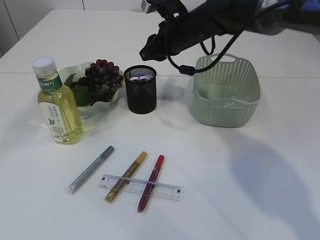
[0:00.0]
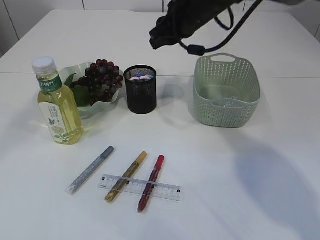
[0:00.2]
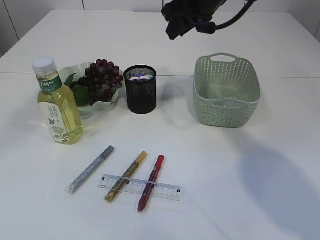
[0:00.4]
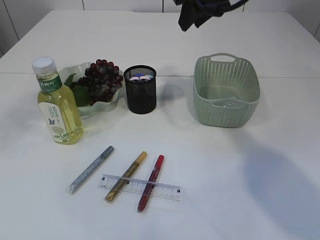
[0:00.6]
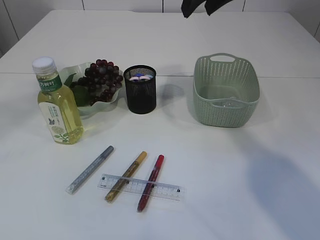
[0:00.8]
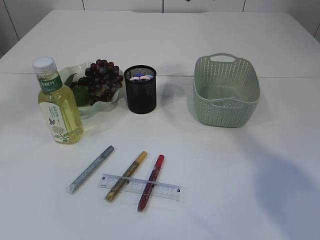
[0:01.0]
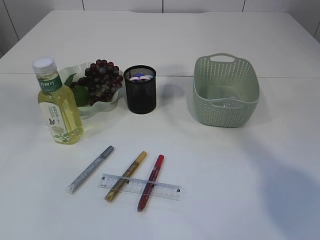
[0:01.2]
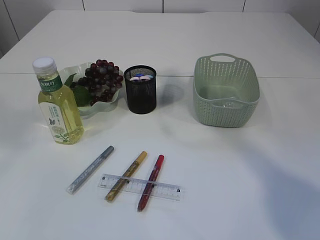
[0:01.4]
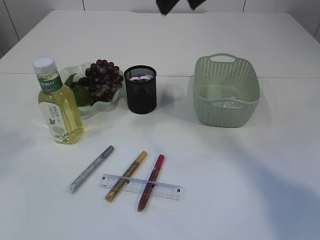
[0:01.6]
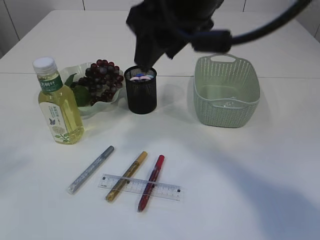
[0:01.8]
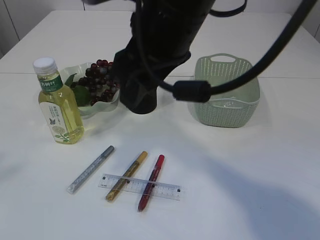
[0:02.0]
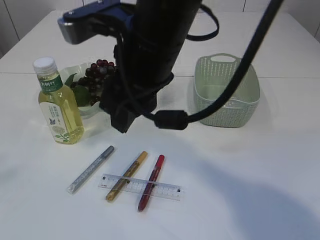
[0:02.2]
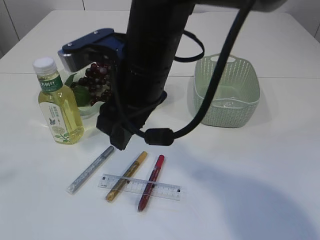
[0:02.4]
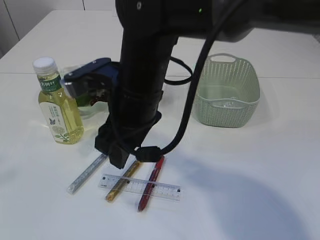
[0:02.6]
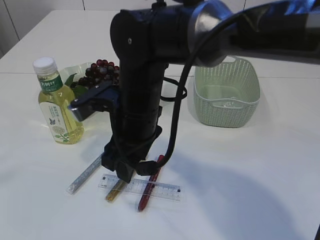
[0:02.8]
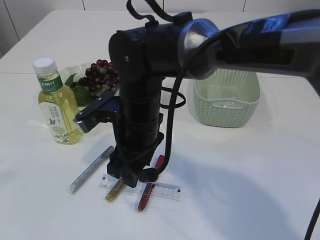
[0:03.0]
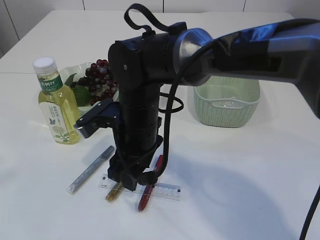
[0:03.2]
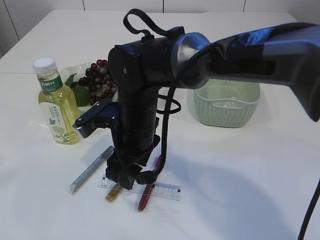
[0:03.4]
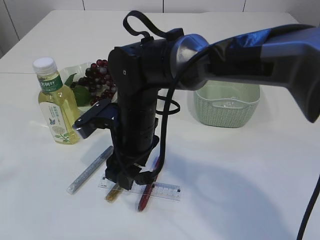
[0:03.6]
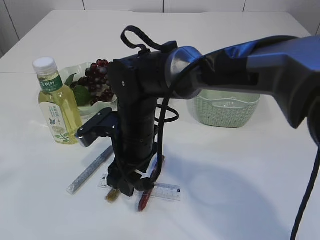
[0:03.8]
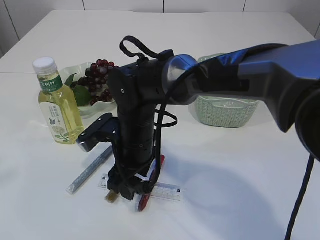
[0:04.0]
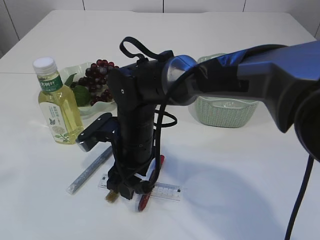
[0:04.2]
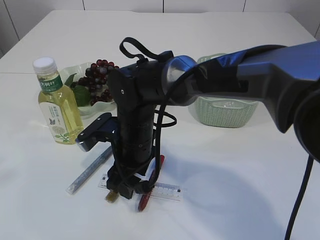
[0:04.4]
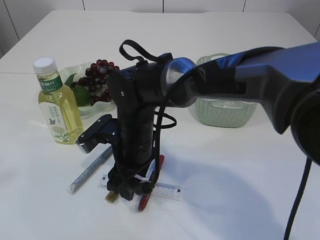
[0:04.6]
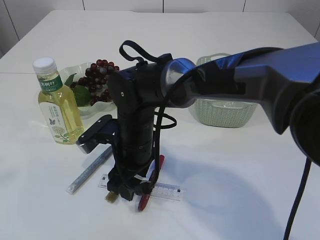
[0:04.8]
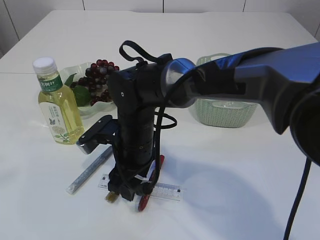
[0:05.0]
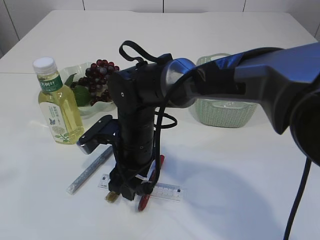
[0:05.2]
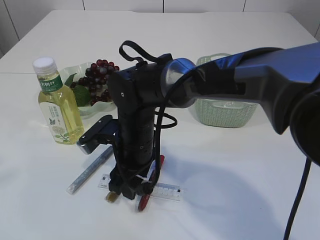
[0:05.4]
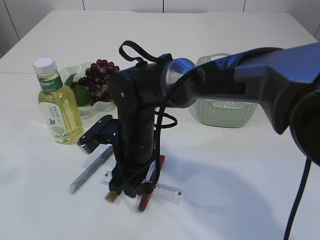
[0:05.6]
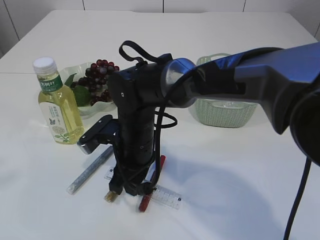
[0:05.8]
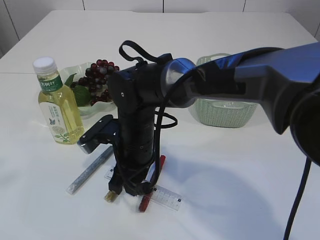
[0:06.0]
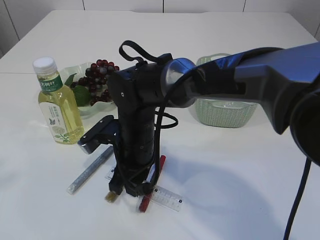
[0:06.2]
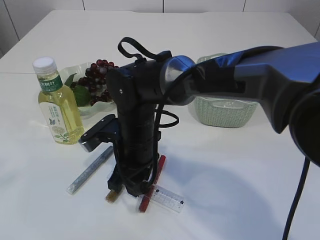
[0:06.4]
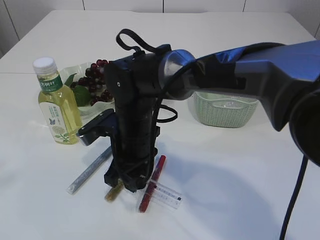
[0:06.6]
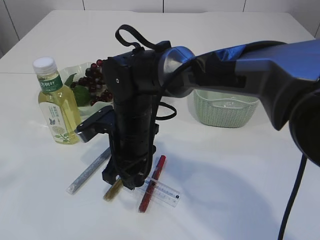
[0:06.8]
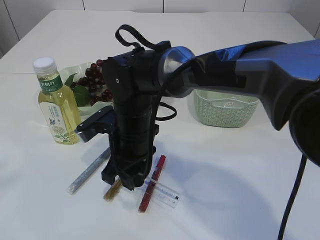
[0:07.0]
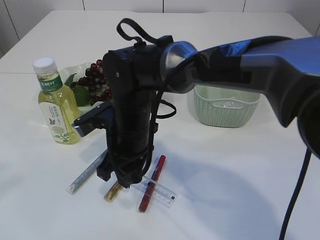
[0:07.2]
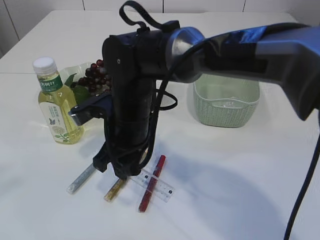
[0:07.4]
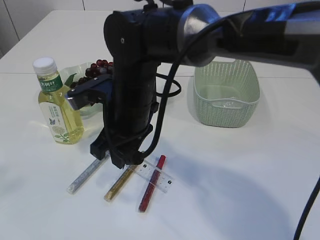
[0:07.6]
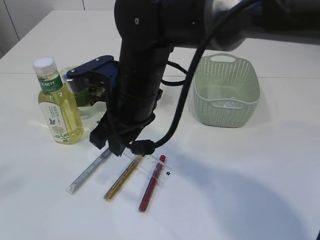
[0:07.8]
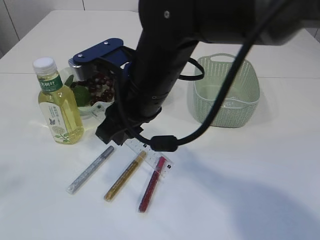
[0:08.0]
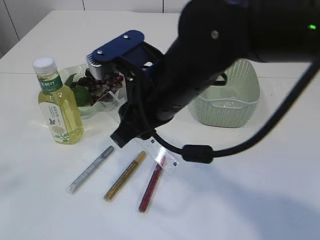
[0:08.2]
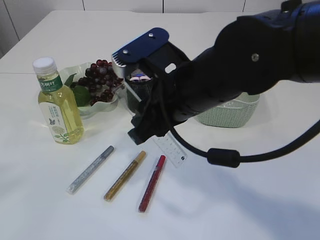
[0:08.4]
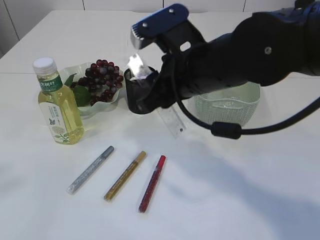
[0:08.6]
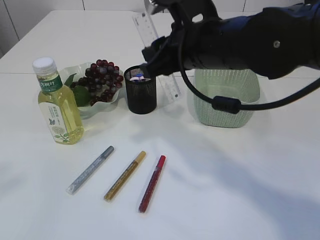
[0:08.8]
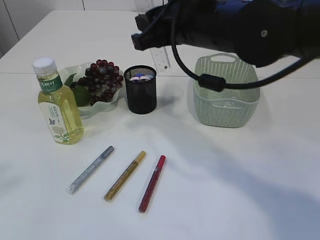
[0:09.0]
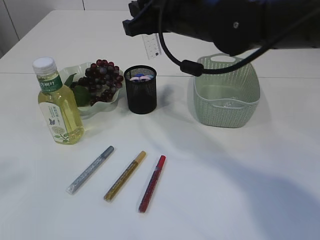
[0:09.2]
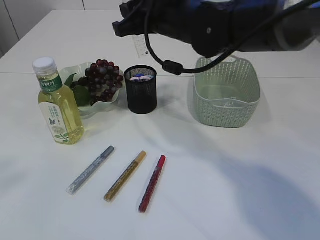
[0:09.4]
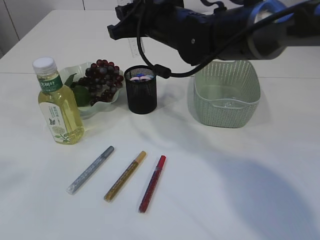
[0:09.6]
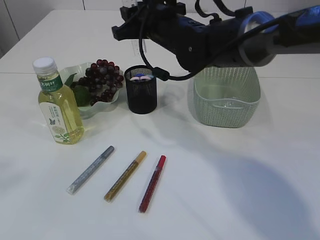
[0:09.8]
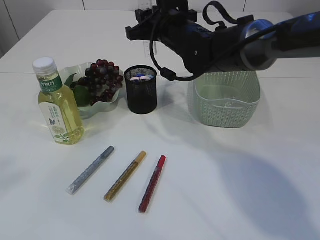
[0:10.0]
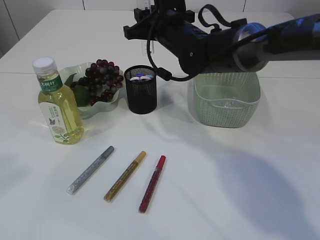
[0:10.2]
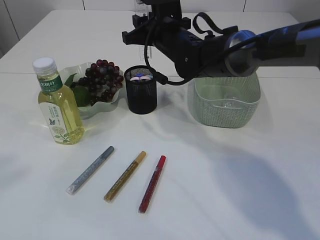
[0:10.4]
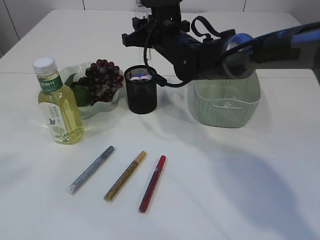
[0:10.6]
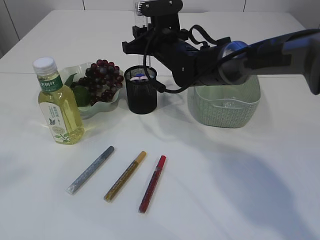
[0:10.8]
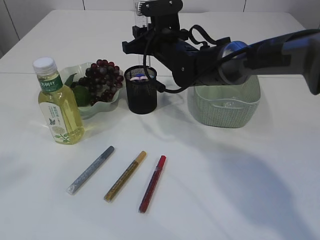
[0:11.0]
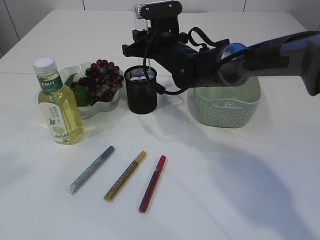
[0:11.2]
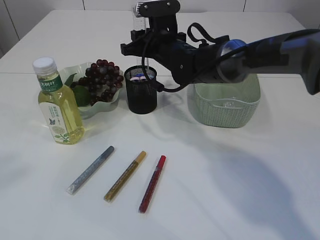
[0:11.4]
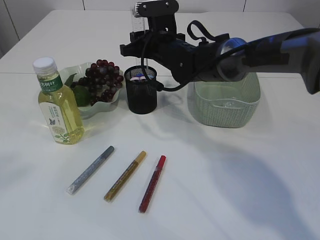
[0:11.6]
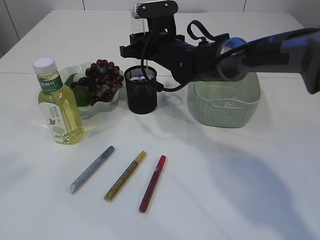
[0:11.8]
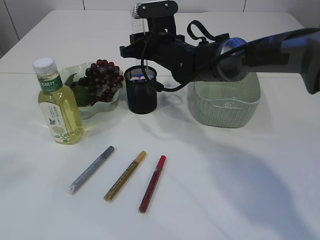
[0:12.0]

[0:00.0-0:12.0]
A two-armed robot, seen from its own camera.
Step, 0:00.2 to 0:07.6: pick up the ruler.
0:00.0 to 0:01.6: The left gripper travels backward and to the left by some 25 cm. Meanwhile the right gripper is displaced upward and backward by roughly 25 cm, and opens up.
0:01.6 to 0:03.0: The right gripper shifts some 25 cm downward and to the left, while the left gripper ends up about 5 cm from where it was.
0:03.0 to 0:04.4: The right gripper travels downward by approximately 5 cm.
0:04.4 to 0:06.0: The right gripper closes.
0:06.0 to 0:07.6: The right gripper heads upward, covering about 10 cm.
0:07.6 to 0:09.0: The right gripper heads to the right and upward, covering some 15 cm.
0:09.0 to 0:10.4: The right gripper heads forward and downward, covering about 15 cm.
0:10.4 to 0:12.0: There are only small adjustments of the grippers.

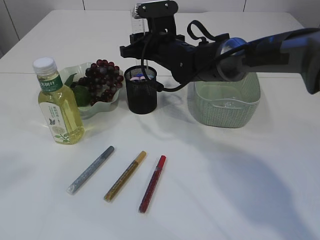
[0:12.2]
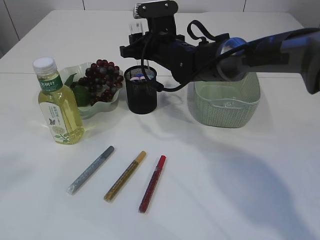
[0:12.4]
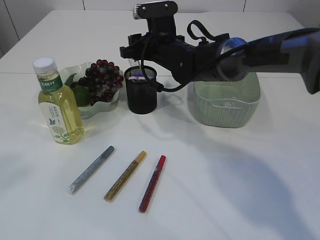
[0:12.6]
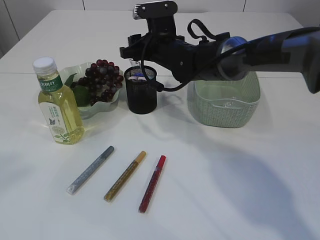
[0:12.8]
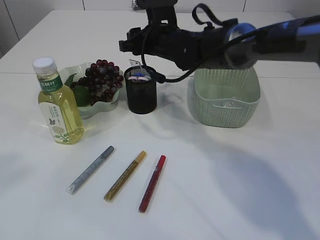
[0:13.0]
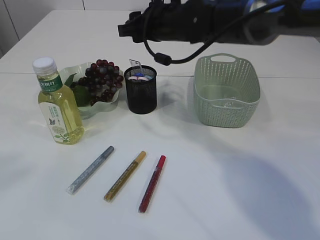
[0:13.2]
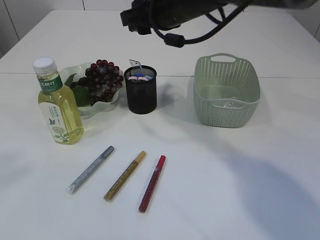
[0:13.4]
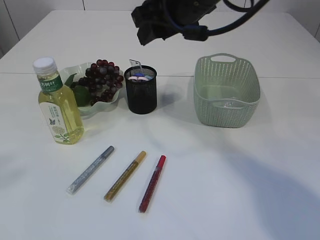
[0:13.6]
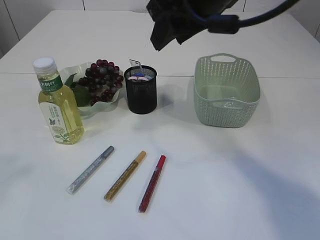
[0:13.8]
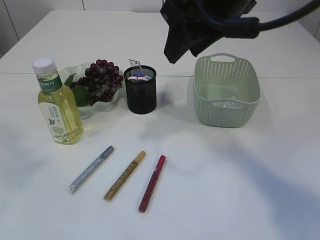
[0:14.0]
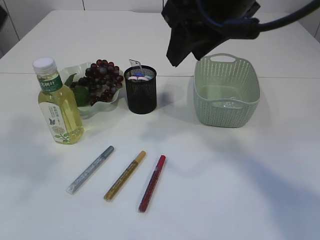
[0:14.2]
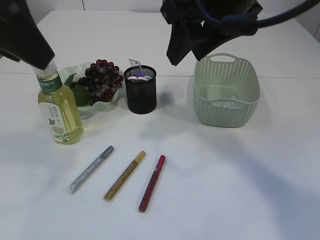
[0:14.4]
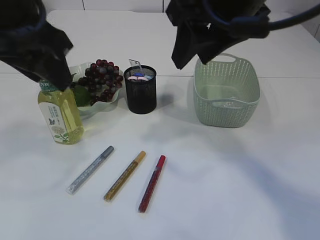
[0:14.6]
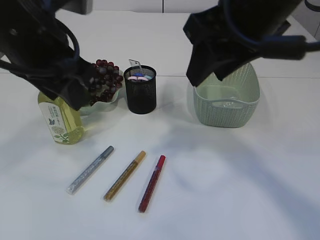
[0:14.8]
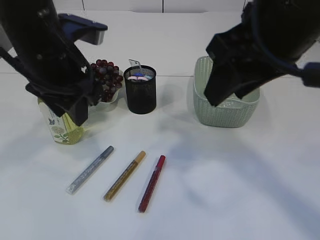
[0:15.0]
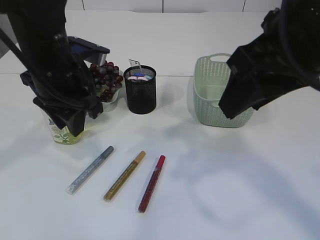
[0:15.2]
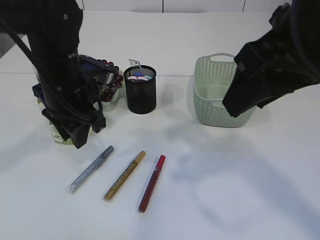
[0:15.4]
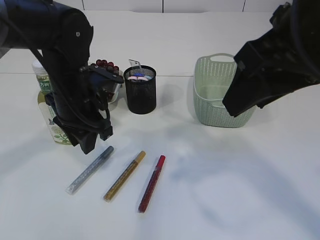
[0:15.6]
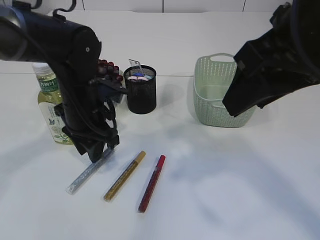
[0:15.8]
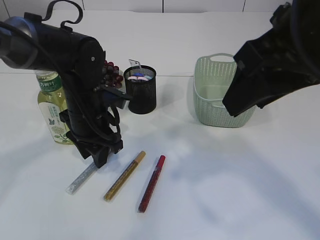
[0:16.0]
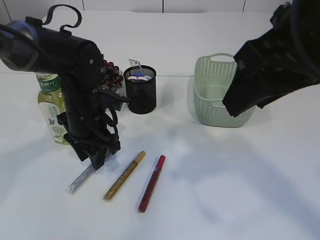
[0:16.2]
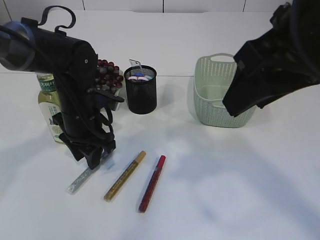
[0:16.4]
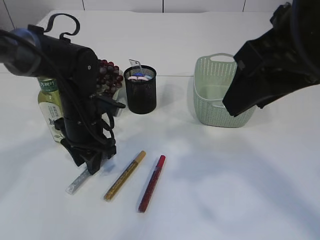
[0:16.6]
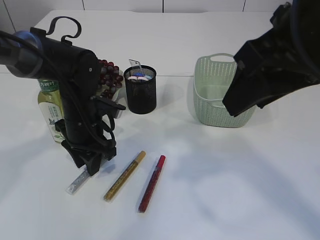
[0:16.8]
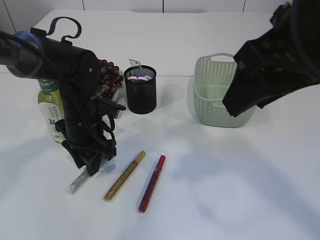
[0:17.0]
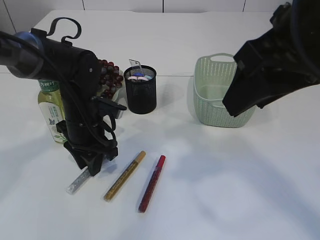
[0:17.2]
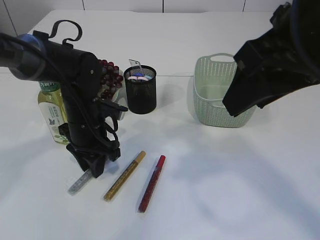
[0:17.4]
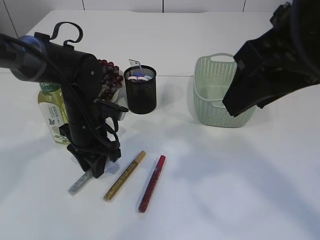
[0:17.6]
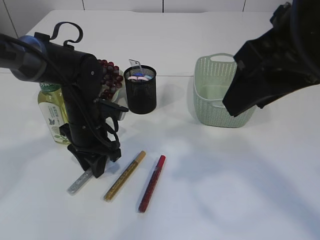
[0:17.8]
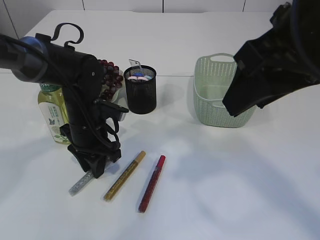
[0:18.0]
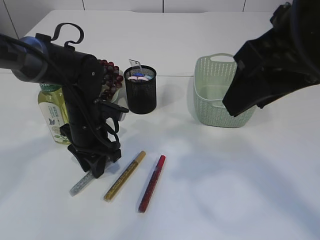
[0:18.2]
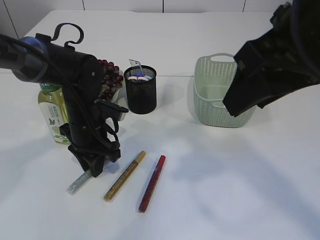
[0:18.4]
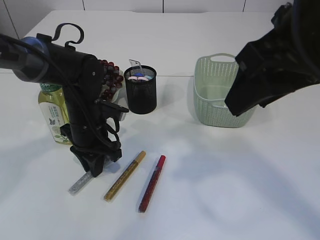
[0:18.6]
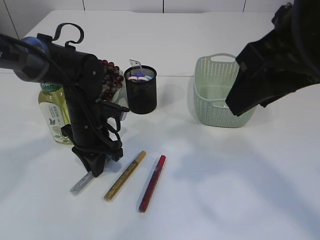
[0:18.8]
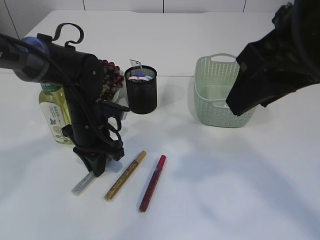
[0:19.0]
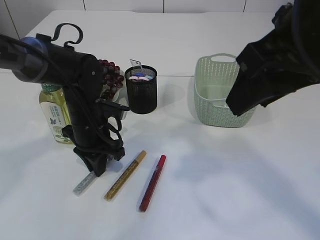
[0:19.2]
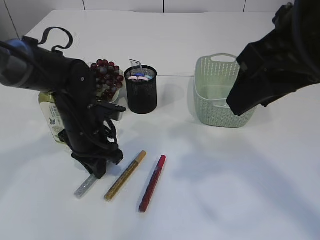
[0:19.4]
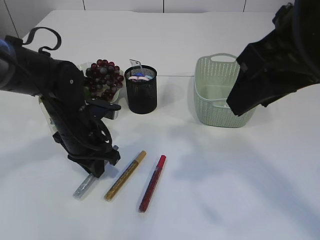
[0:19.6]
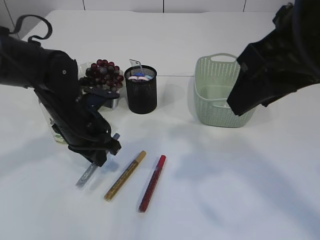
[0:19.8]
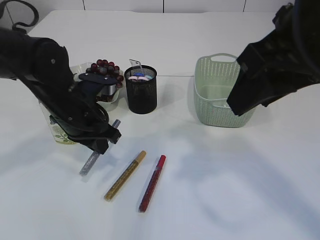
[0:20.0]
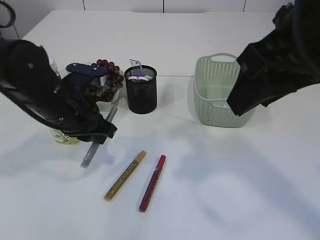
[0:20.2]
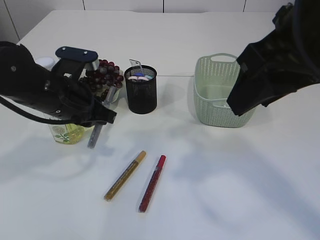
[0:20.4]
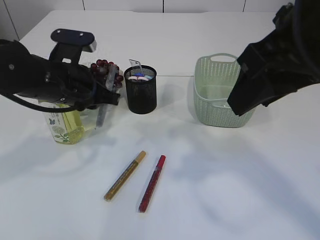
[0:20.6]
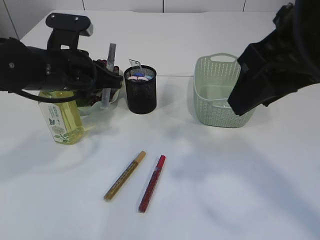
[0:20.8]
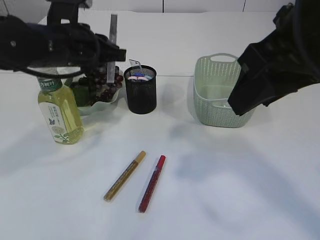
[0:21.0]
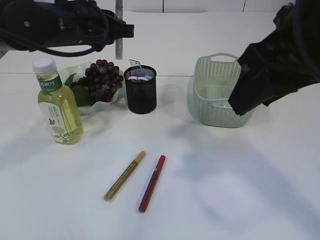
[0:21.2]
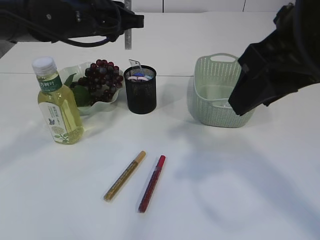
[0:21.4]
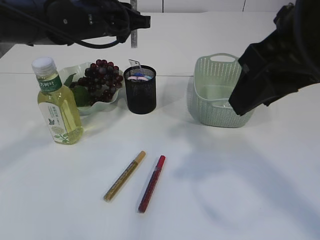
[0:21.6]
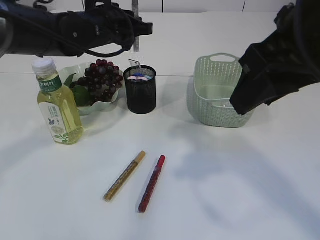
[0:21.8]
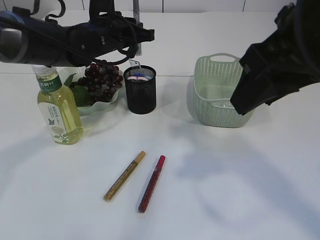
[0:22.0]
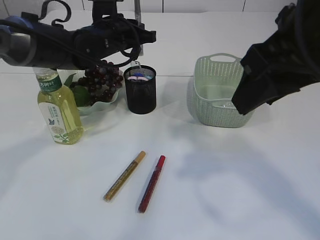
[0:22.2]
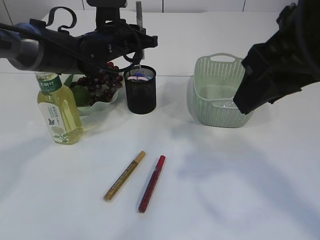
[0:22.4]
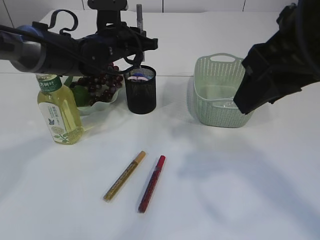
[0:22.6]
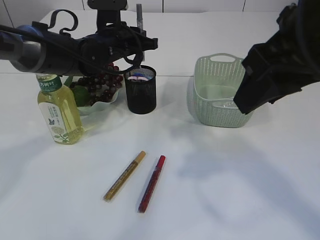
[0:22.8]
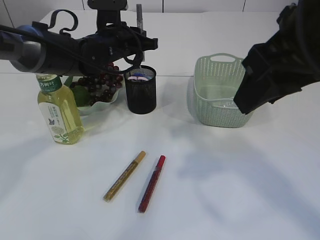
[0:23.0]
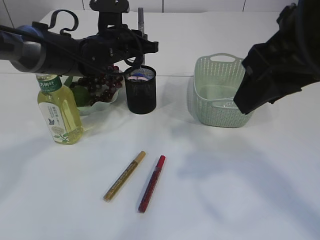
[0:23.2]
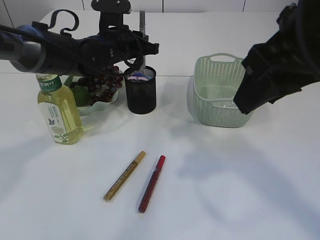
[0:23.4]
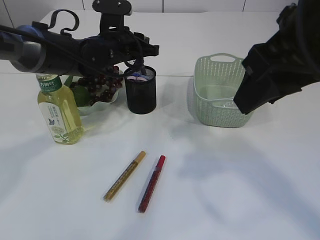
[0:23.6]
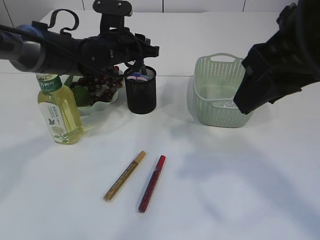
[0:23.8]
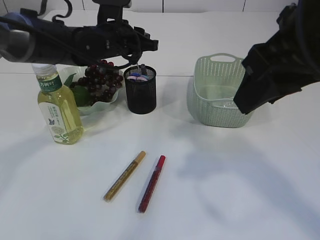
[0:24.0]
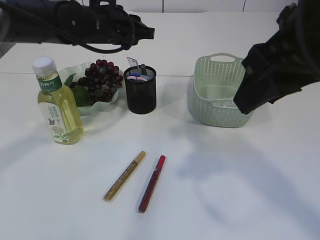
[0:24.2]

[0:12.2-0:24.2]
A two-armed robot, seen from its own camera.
Step, 0:13.2 to 0:20.0: pick up the silver glue.
Step, 0:20.2 to 0:24.2: place the silver glue into the pen holder.
0:12.2 to 0:13.8: The right gripper is displaced upward and backward by roughly 20 cm.
0:13.8 to 0:15.2: The right gripper is displaced backward and to the right by roughly 10 cm. Meanwhile the left gripper heads downward and forward, covering roughly 30 cm.
0:15.2 to 0:16.6: The left gripper goes about 10 cm downward.
0:16.6 to 0:18.2: The grippers stay close to where they were, moving slightly.
0:18.2 to 0:19.8: The left gripper closes up.
0:19.8 to 0:21.2: The left gripper shifts approximately 15 cm upward.
0:21.2 to 0:22.6: The left gripper moves forward and downward, roughly 10 cm.
0:22.6 to 0:24.2: The left gripper shifts by about 5 cm.
